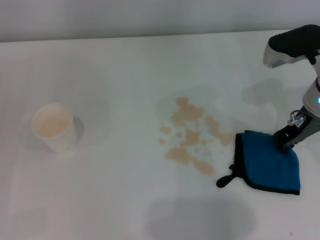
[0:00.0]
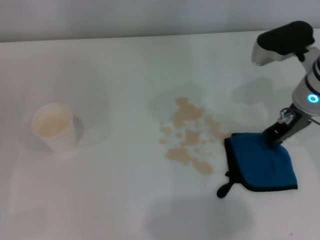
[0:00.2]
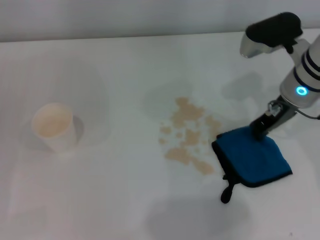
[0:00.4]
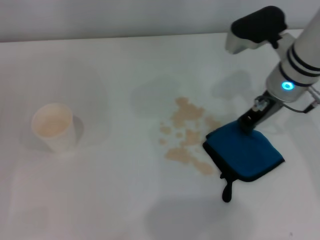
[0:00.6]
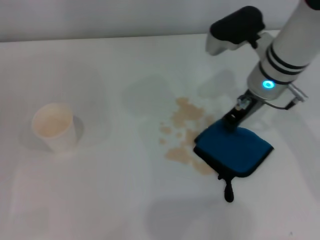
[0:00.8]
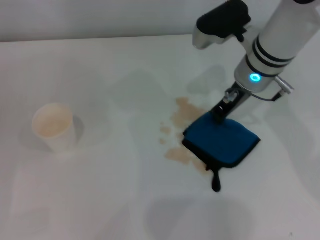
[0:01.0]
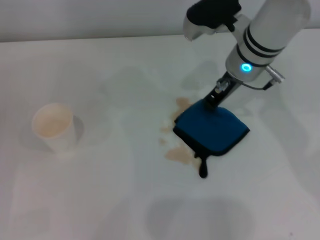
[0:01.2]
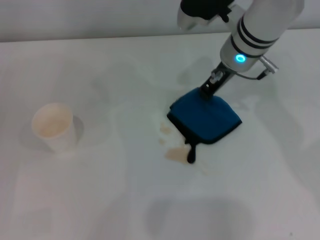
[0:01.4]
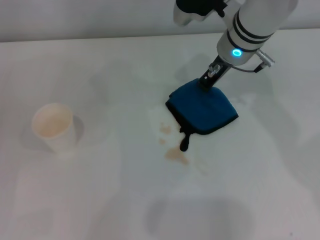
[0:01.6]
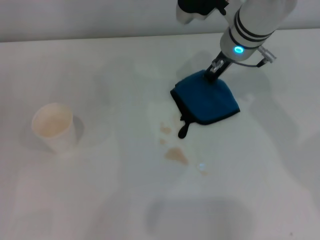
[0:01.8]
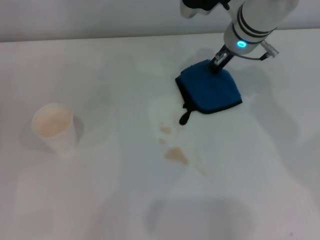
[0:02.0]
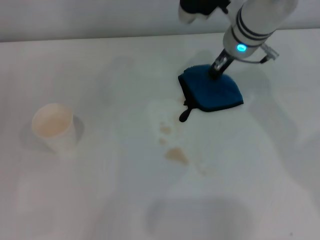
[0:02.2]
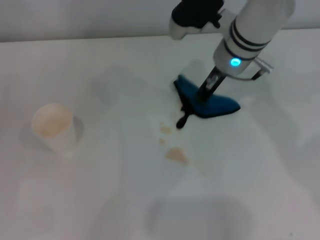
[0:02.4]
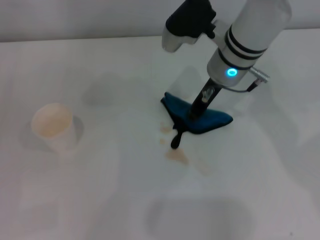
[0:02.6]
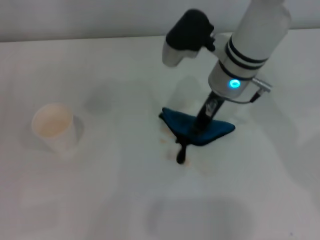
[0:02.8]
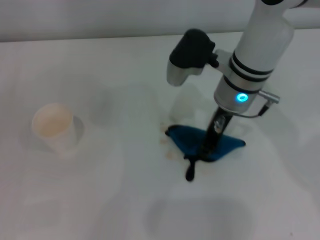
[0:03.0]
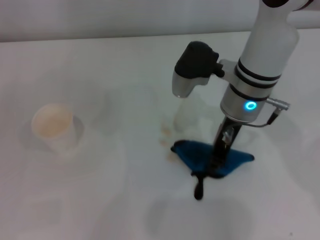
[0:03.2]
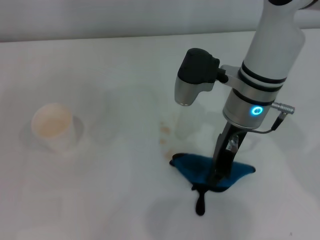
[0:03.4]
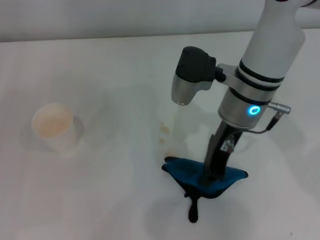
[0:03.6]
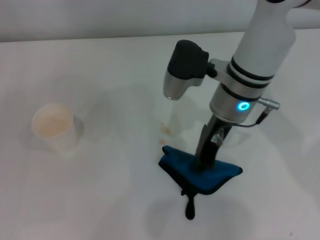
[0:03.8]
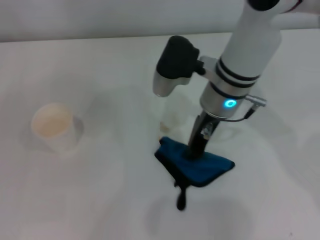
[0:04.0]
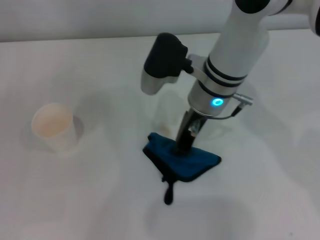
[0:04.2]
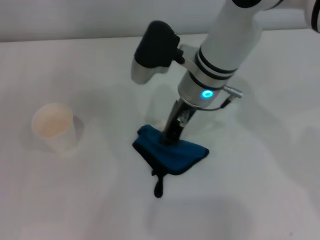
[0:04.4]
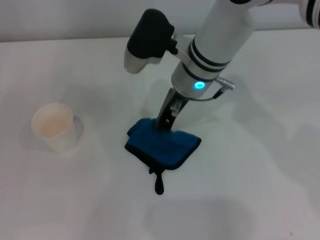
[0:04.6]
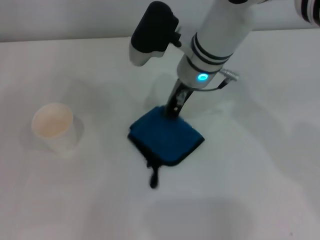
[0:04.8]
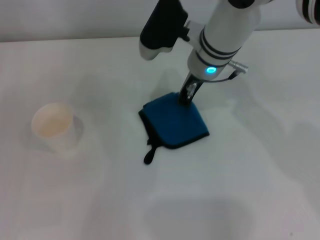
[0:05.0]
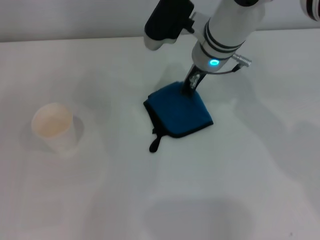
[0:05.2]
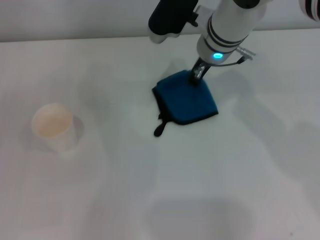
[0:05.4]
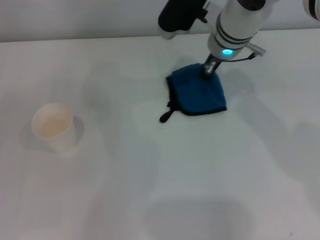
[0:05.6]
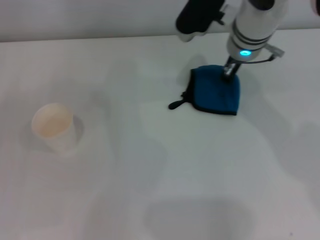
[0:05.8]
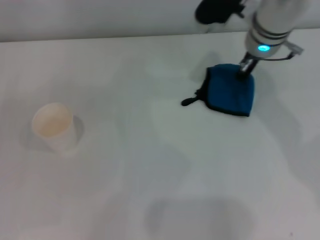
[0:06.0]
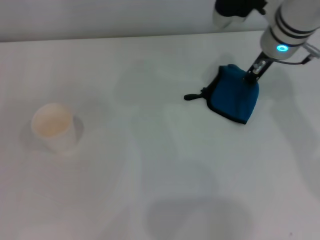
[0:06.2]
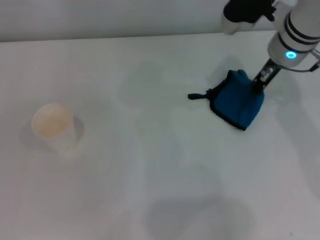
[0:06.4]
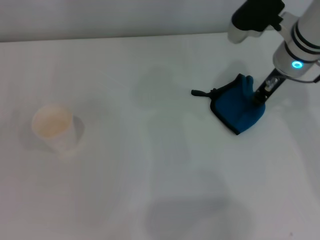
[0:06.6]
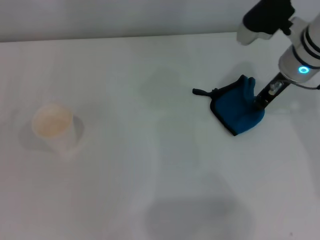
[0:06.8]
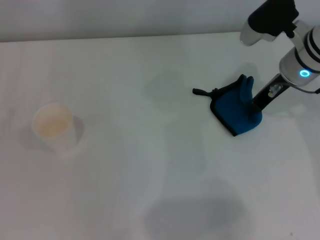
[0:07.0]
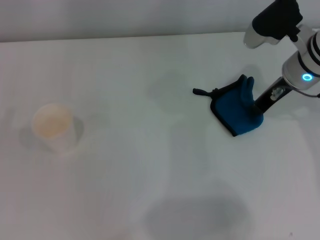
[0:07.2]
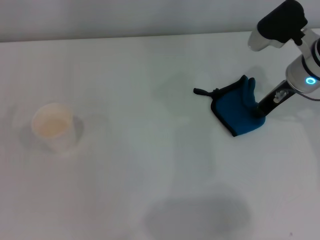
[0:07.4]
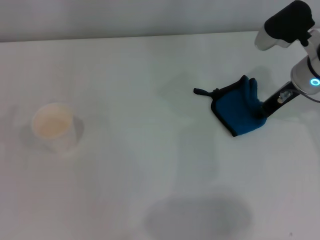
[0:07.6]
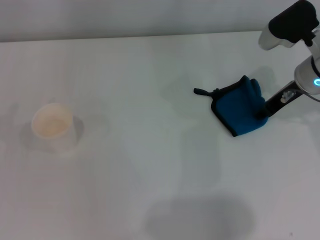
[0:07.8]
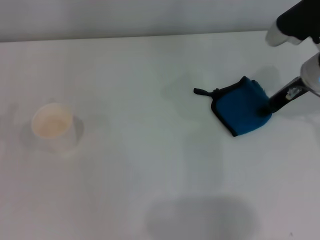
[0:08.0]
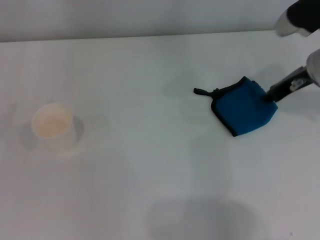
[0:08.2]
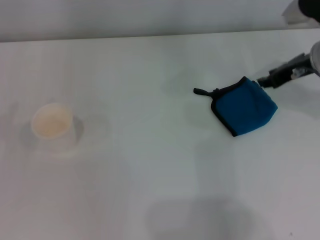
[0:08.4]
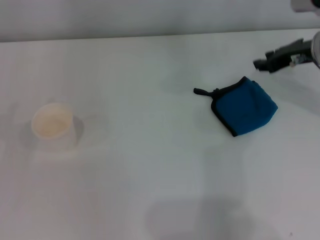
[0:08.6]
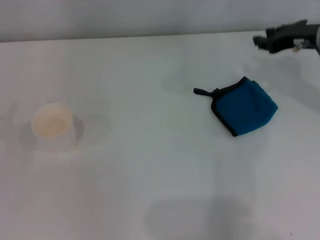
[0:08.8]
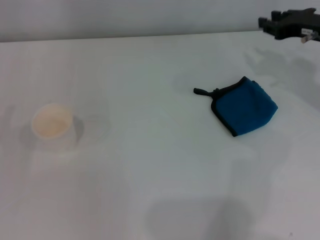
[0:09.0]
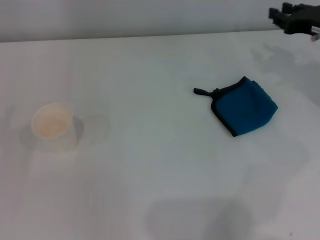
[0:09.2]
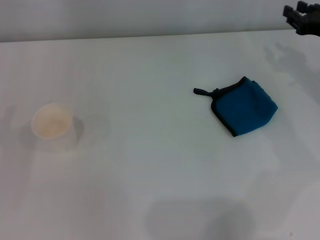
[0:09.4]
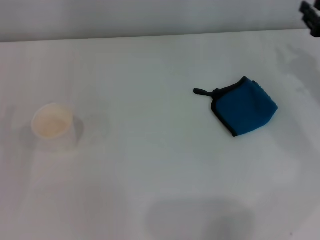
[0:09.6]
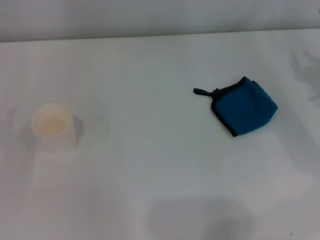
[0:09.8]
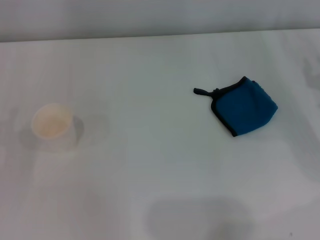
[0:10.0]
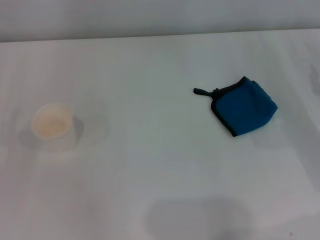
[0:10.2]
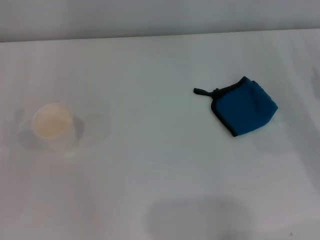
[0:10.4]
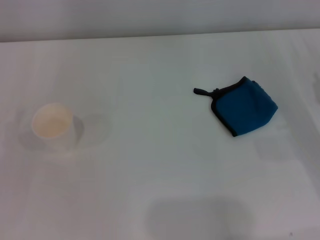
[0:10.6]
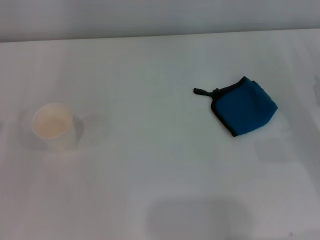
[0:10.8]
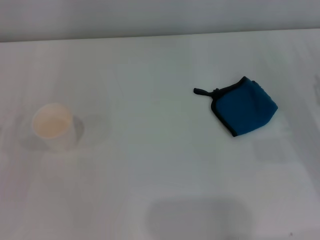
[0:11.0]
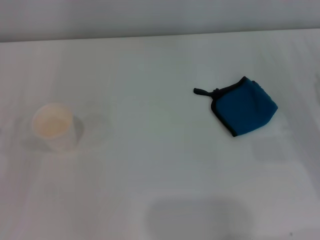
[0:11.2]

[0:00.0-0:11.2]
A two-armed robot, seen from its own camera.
Step, 0:00.0 to 0:07.2: Wipe the stains off the table with the right gripper.
Step, 0:07.4 to 0:08.0: Place the rag on the table with the right gripper.
0:00.0 to 0:01.6: The right gripper travels to the left and forward by approximately 15 cm.
0:01.6 to 0:03.2: The right gripper shifts about 5 cm backward.
0:03.2 to 0:04.8: The right gripper heads to the left, covering approximately 5 cm.
0:04.8 to 0:06.4: The right gripper heads to the right, covering roughly 15 cm.
0:06.4 to 0:08.0: The right gripper heads to the right, covering about 5 cm, and opens up.
0:08.0 to 0:09.6: The right gripper is displaced to the right by some 10 cm.
0:09.6 to 0:11.2: The right gripper heads backward and downward, covering roughly 10 cm.

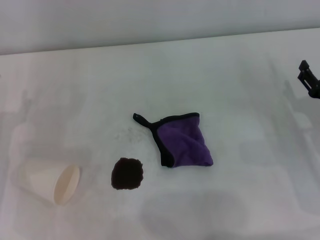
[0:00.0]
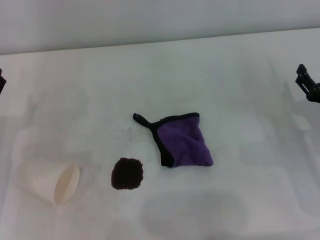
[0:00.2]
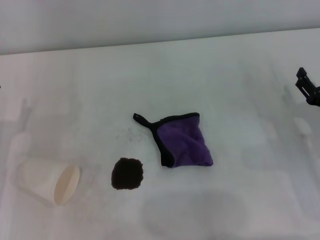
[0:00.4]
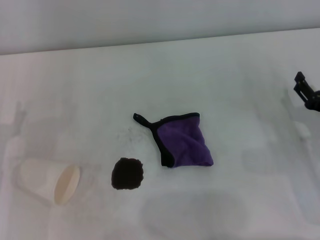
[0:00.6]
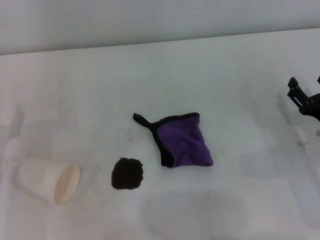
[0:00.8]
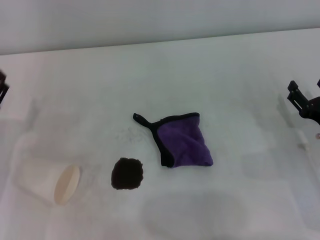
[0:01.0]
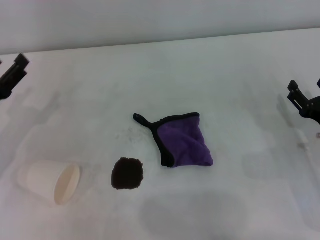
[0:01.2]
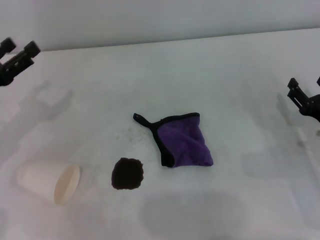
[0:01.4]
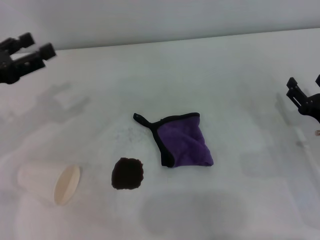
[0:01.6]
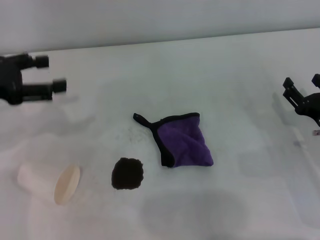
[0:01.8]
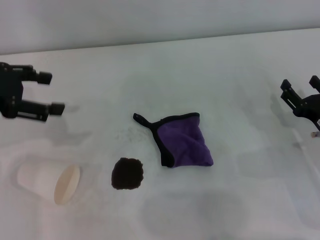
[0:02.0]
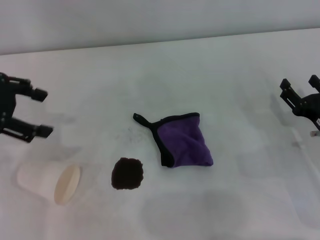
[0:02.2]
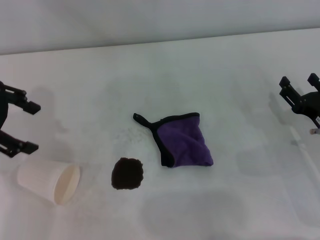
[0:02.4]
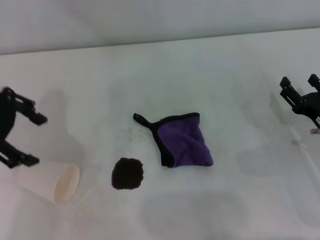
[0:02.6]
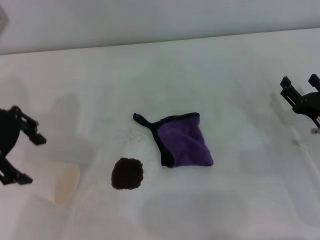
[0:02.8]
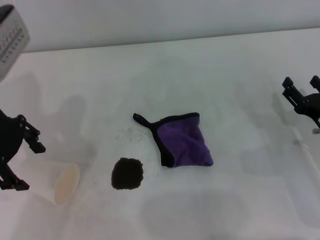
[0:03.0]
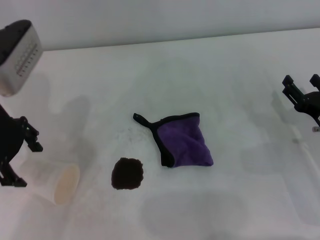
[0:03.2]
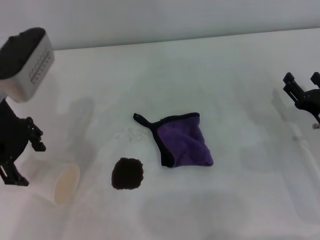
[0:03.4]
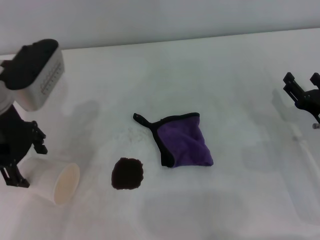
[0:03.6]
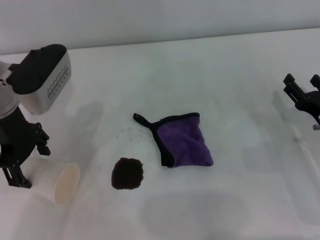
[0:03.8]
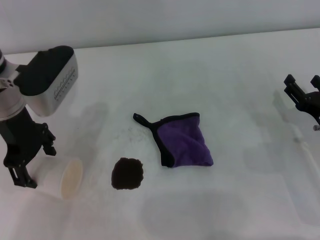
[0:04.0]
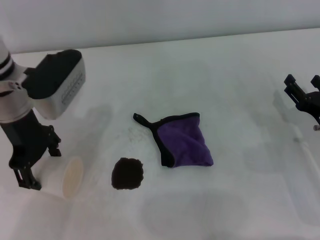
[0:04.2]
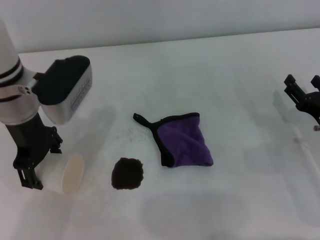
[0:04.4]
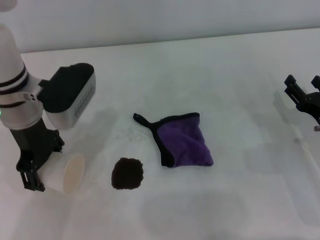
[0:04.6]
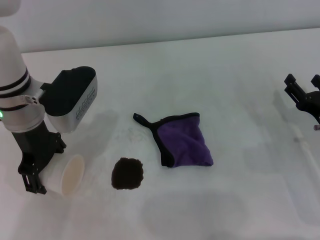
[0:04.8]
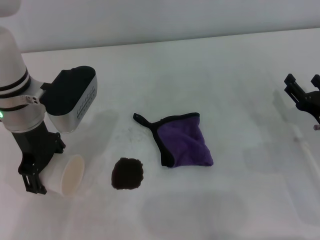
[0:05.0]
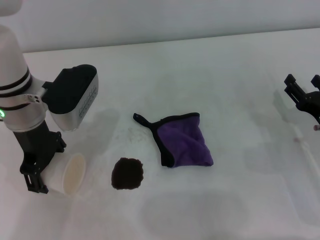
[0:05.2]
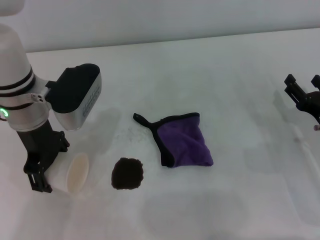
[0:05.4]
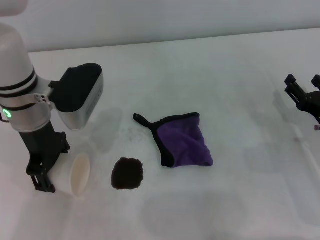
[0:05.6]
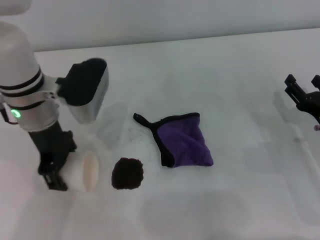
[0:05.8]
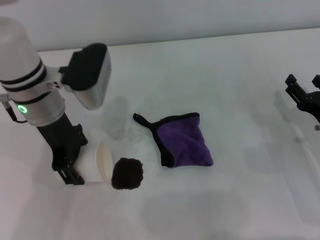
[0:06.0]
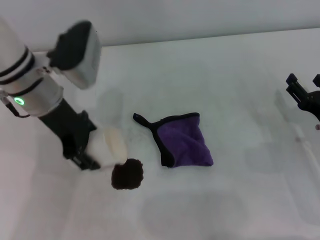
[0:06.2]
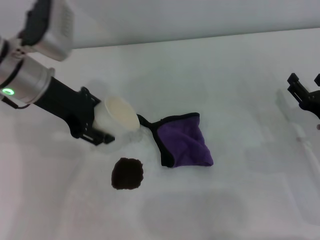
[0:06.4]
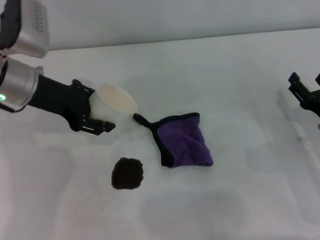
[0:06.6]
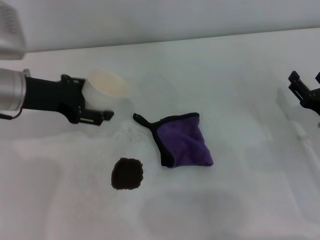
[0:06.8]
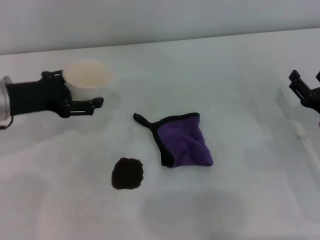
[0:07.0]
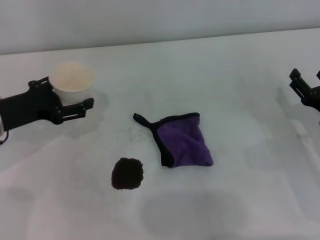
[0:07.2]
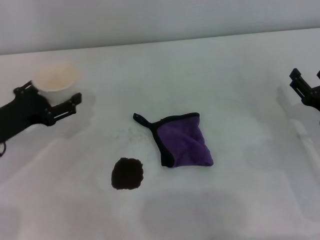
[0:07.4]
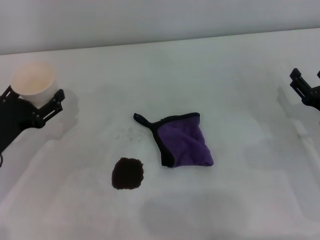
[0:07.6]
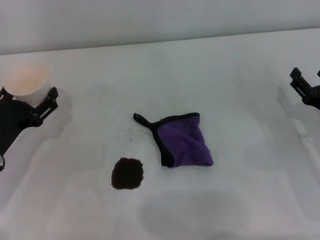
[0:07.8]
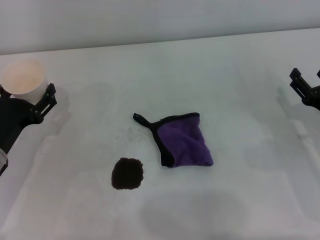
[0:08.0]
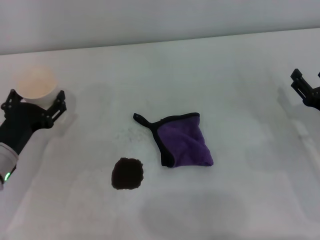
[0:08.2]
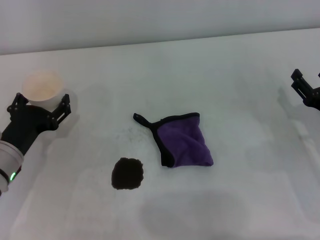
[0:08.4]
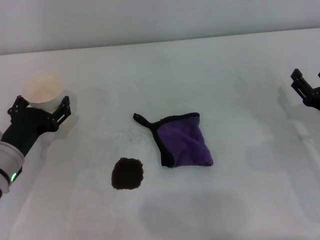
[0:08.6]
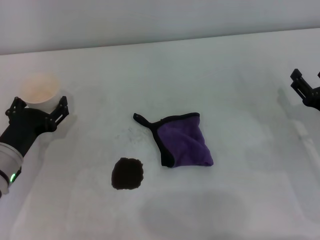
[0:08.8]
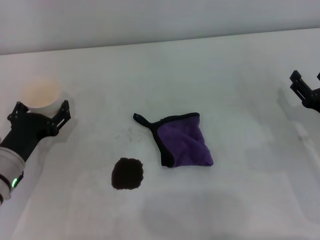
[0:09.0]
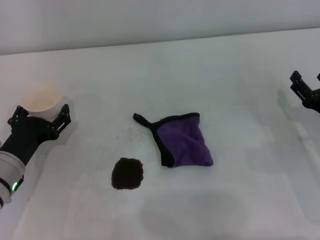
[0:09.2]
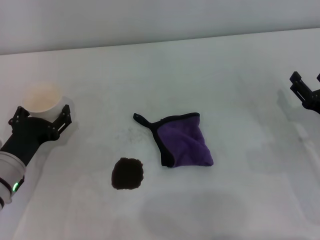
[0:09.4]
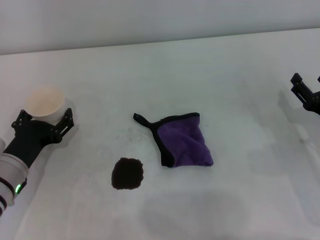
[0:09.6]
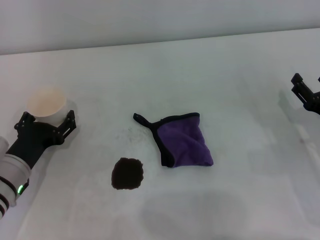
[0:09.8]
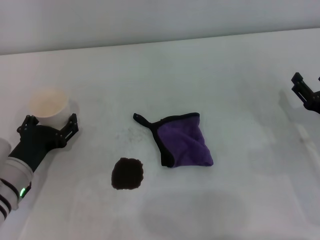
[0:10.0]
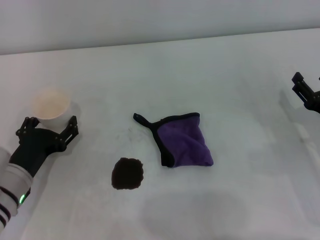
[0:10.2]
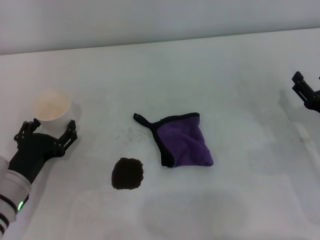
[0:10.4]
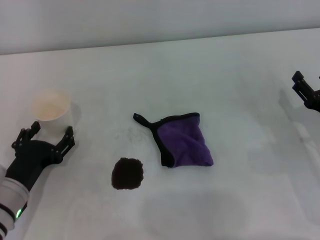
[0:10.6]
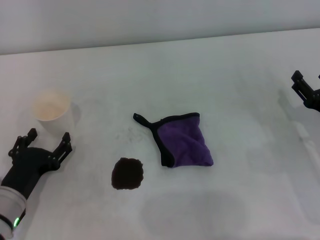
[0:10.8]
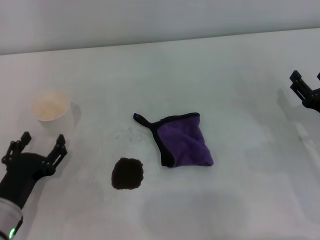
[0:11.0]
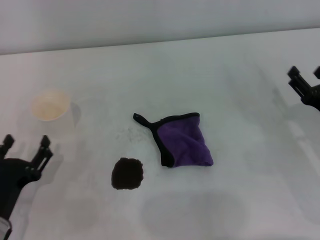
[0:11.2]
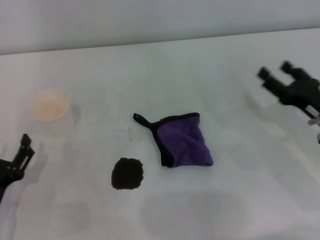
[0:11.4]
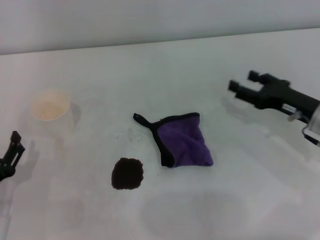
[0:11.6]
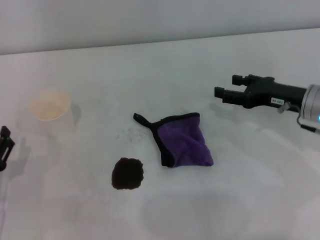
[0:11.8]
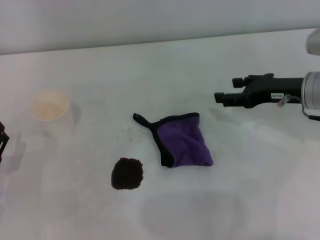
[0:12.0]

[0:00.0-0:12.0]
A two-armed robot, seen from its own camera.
Step, 0:00.0 to 0:05.0: Grasp the paper cup with the left gripper.
Step, 0:05.2 to 0:10.4: Stand the paper cup upright with the left gripper.
0:00.0 to 0:01.6: The left gripper travels upward by approximately 10 cm.
0:01.6 to 0:03.0: The left gripper shifts some 10 cm upward and to the right.
0:03.0 to 0:04.4: The left gripper heads to the right and downward, covering some 10 cm.
0:04.4 to 0:06.0: The left gripper closes.
0:06.0 to 0:07.6: The left gripper heads to the left, downward and backward, covering some 20 cm, and opens its fingers.
0:07.6 to 0:09.0: The left gripper shifts by some 5 cm.
0:09.0 to 0:10.4: The grippers move only a little.
0:10.4 to 0:12.0: The left gripper goes roughly 5 cm to the left. Meanwhile the right gripper travels upward and forward by about 15 cm.
